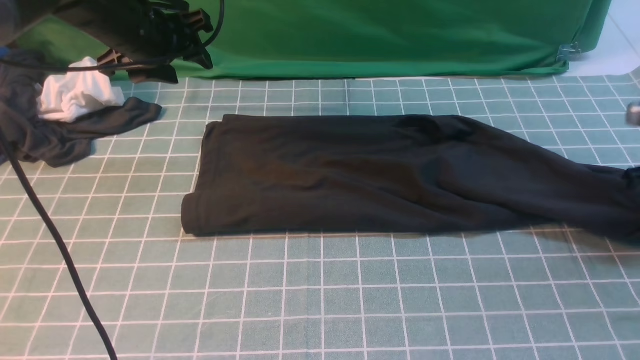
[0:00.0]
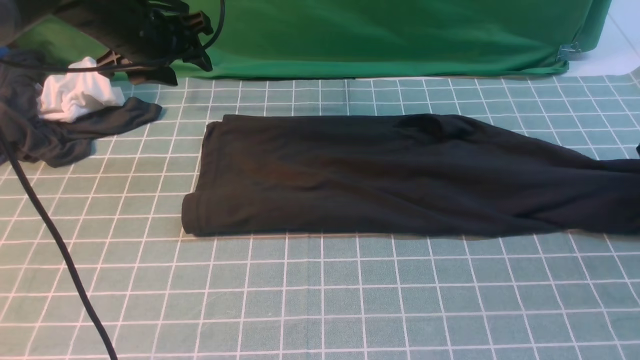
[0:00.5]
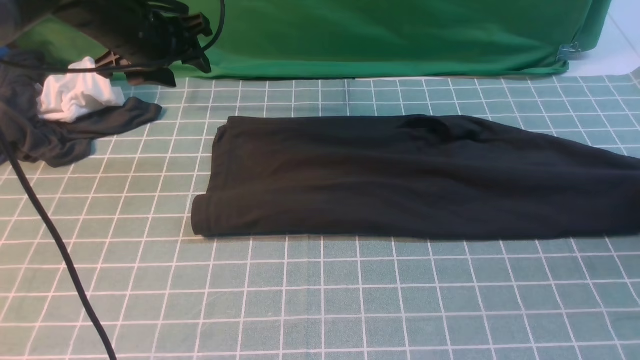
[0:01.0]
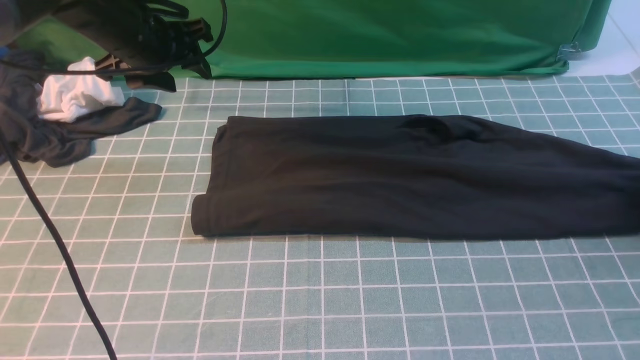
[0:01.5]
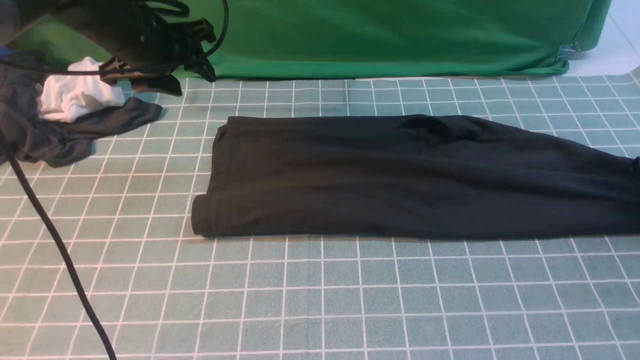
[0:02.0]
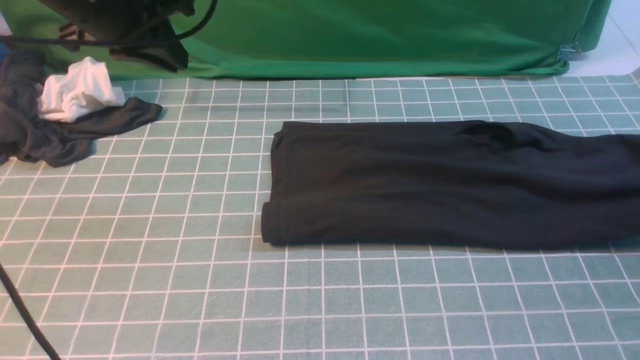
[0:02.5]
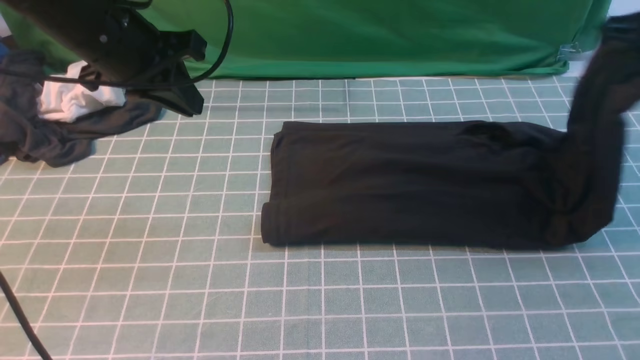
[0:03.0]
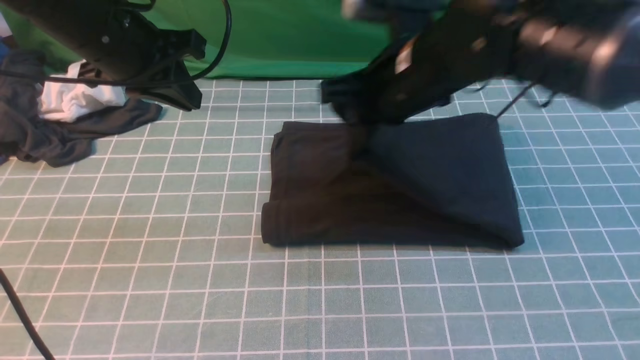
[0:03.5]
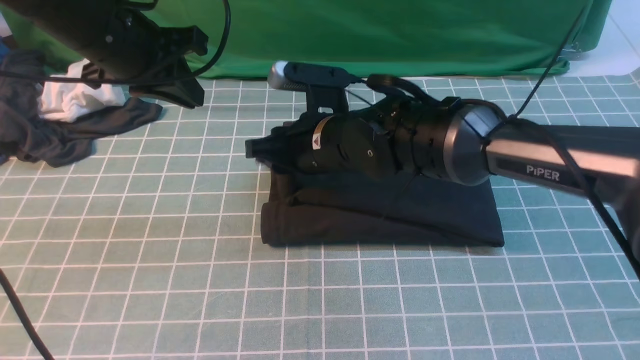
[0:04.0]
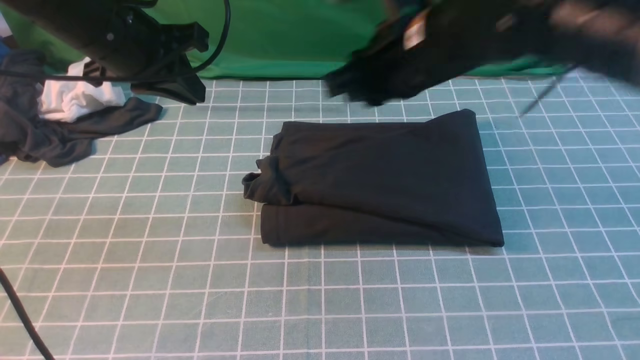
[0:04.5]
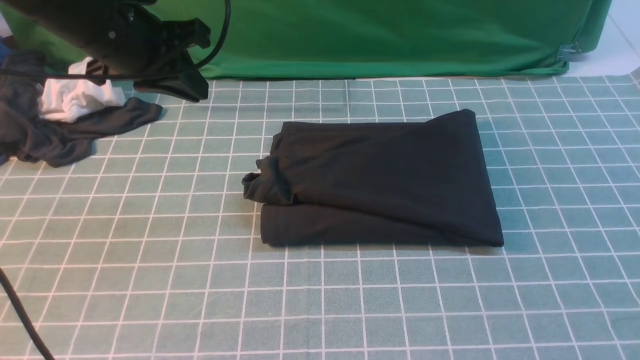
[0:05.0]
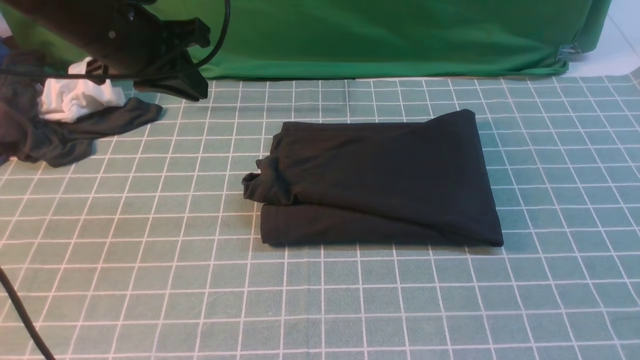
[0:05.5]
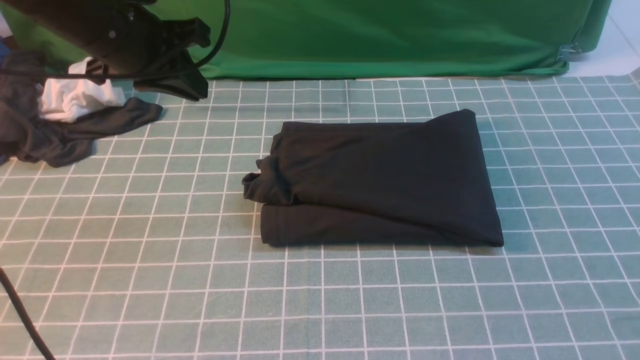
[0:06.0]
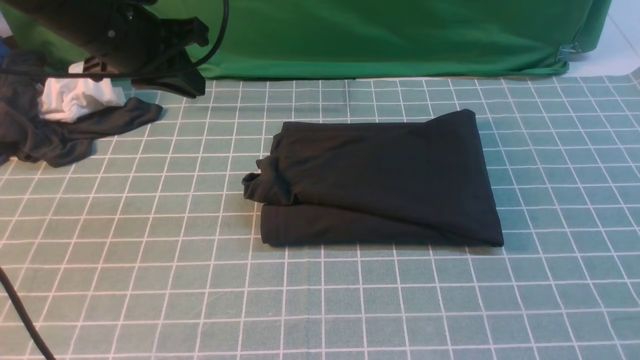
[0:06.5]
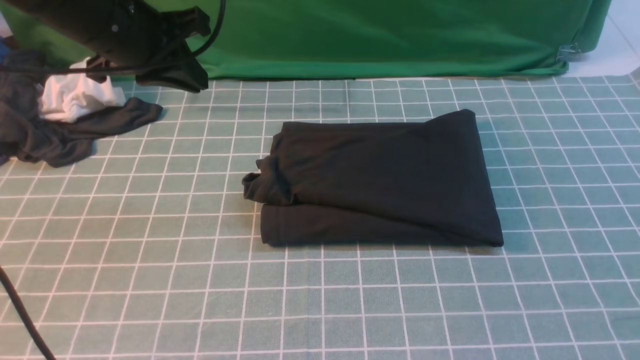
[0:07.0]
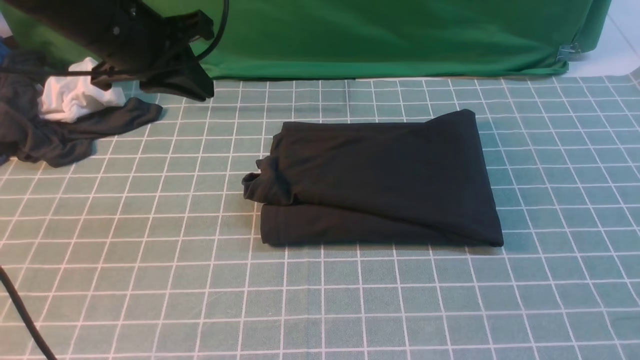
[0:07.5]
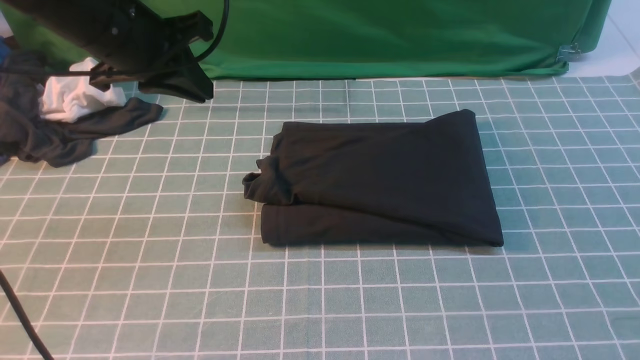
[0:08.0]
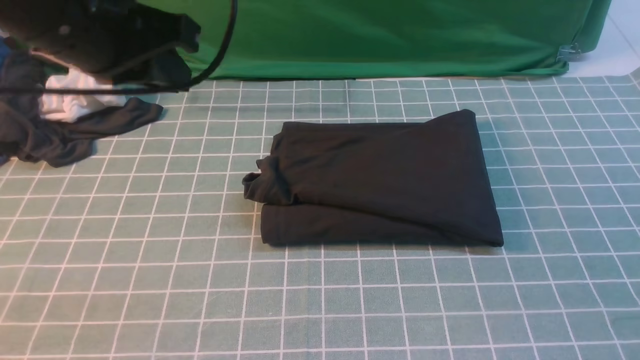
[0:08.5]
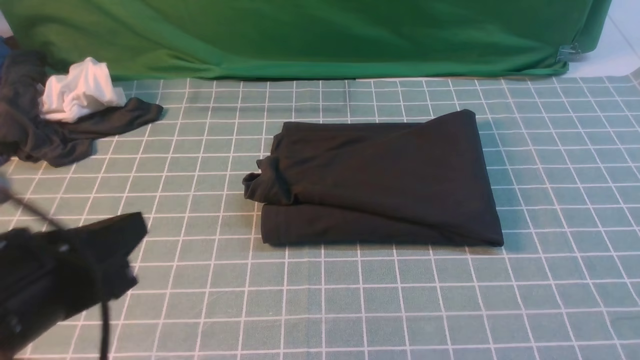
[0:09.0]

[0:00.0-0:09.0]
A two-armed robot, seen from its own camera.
Step, 0:00.0 to 0:02.0: use the right arm to clamp the right edge of the fabric.
Step, 0:02.5 to 0:04.0: use the right arm to drag the right edge of the fabric to the left and folds it over the left edge.
0:00.0 to 0:02.0: The right gripper shifts roughly 5 cm to the right, and opens, then closes once more.
0:02.0 to 0:04.5: The right gripper is displaced to the left and upward by roughly 40 cm. The left gripper goes approximately 5 cm backward, and closes its fingers.
0:04.5 to 0:07.0: The right gripper goes some 35 cm backward and to the right.
0:07.0 to 0:09.0: The left gripper is displaced backward by approximately 25 cm.

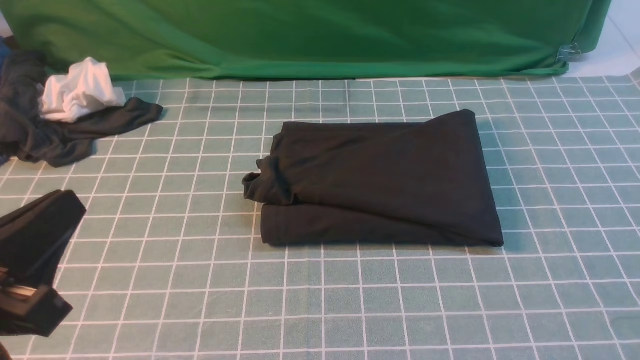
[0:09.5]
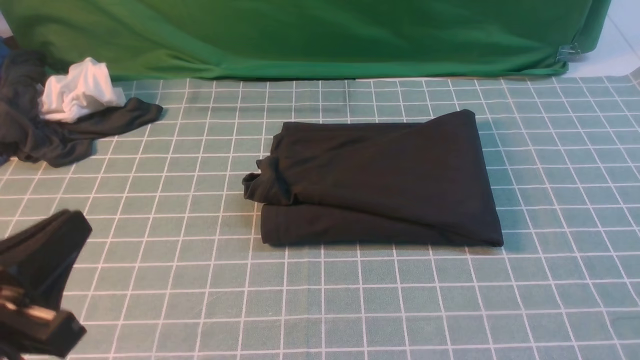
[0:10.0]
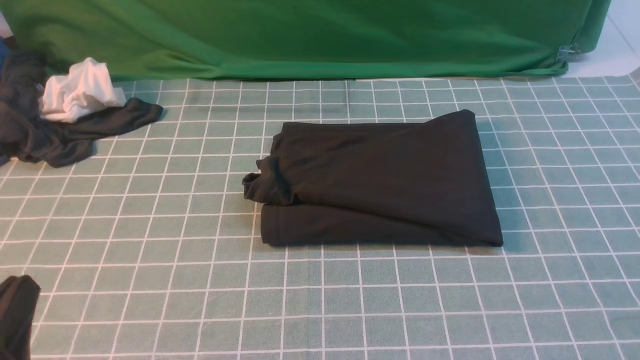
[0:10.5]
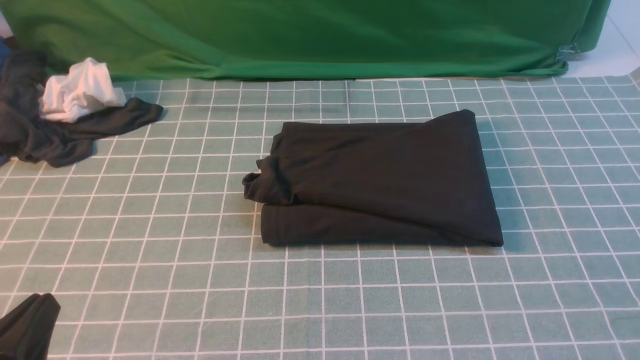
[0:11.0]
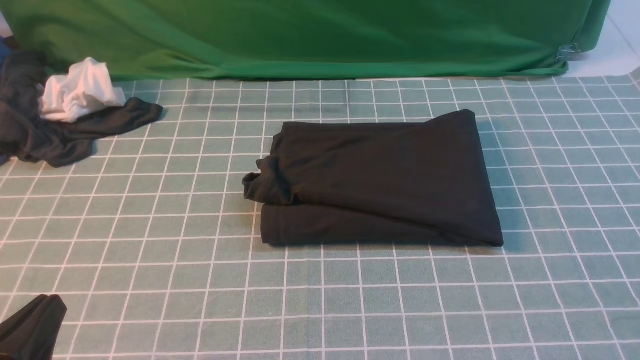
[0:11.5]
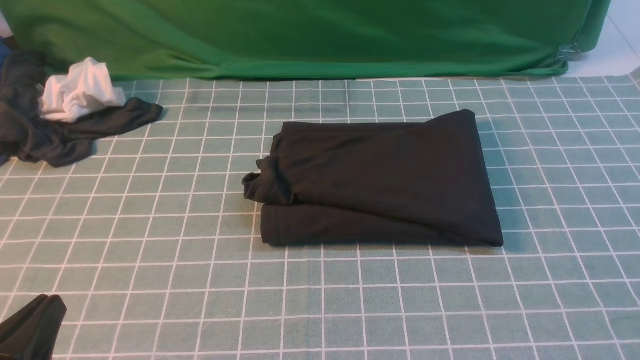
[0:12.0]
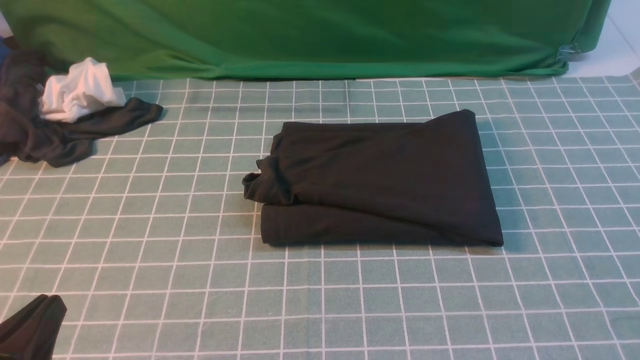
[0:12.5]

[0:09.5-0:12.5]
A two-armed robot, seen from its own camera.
0:09.5 to 0:11.0: The left gripper moves downward, roughly 10 cm.
0:11.0 to 0:12.5: Both grippers stay put.

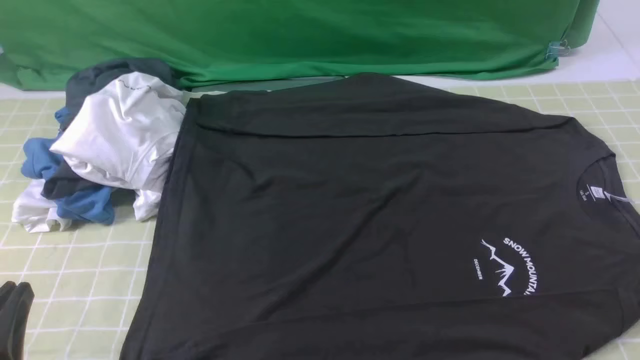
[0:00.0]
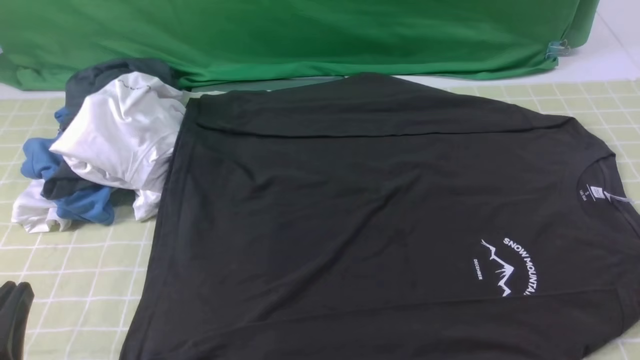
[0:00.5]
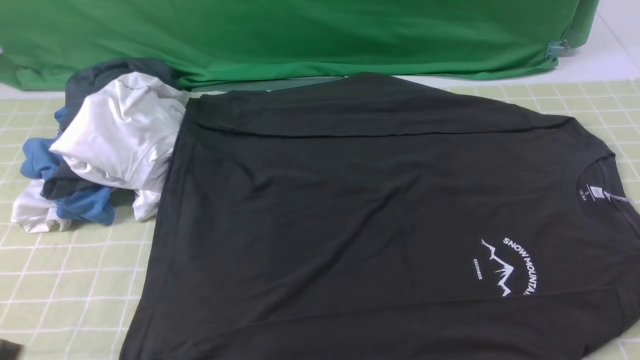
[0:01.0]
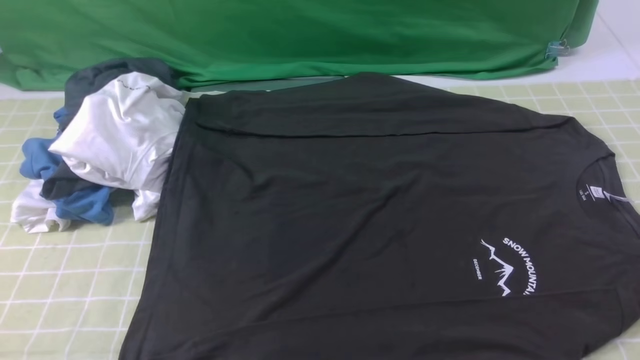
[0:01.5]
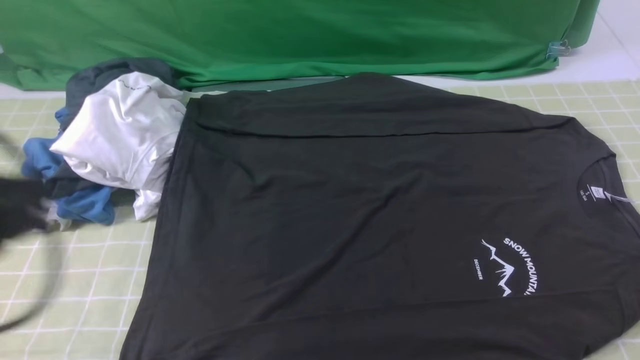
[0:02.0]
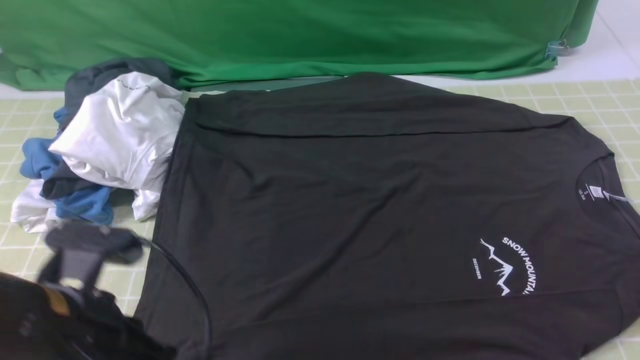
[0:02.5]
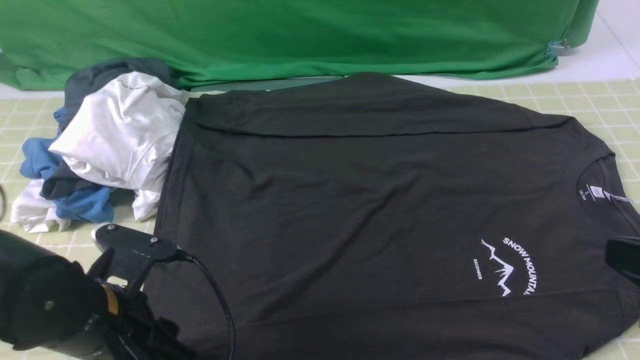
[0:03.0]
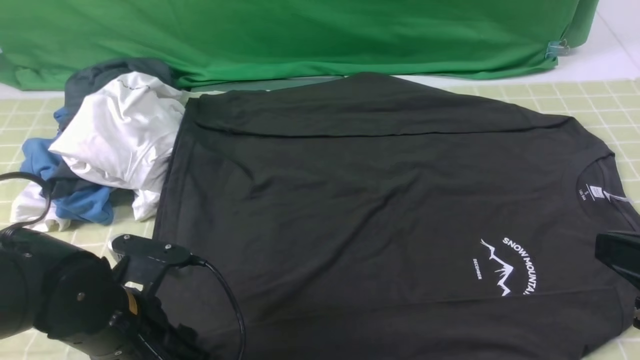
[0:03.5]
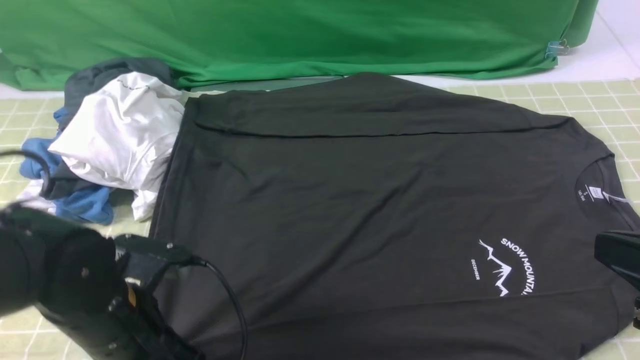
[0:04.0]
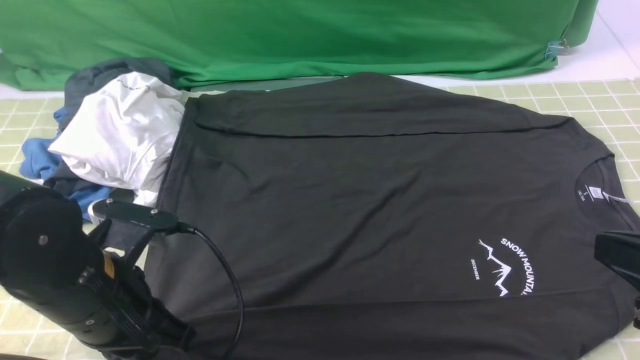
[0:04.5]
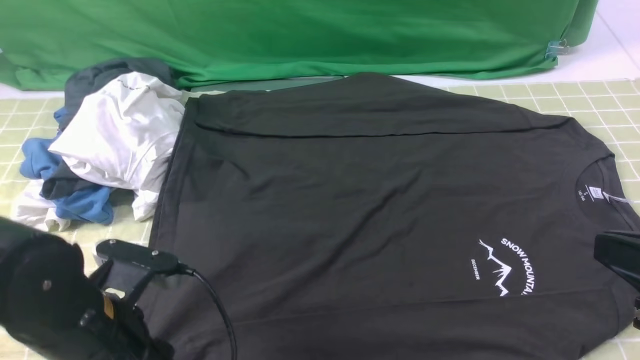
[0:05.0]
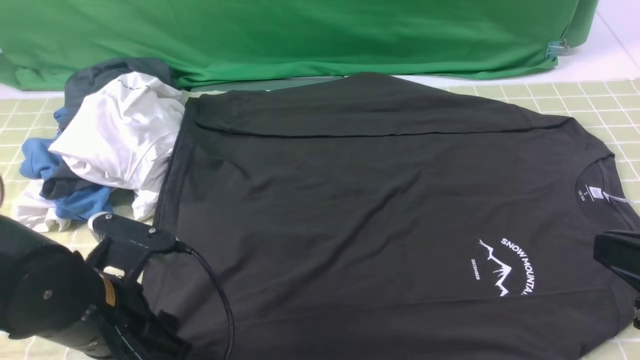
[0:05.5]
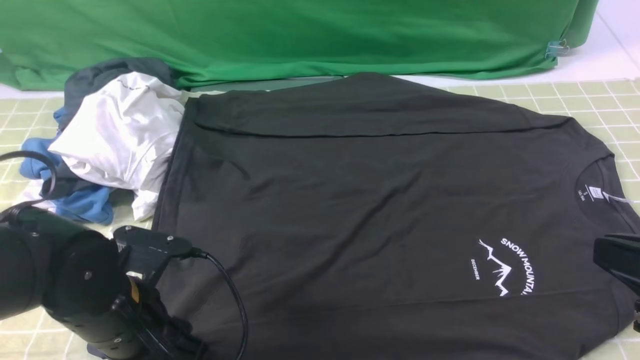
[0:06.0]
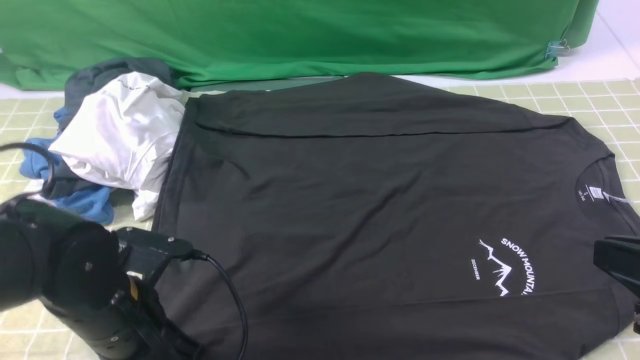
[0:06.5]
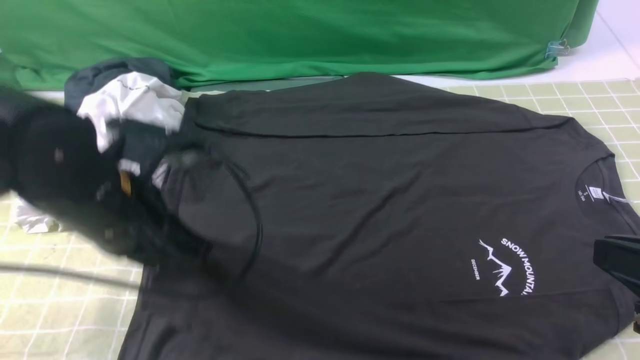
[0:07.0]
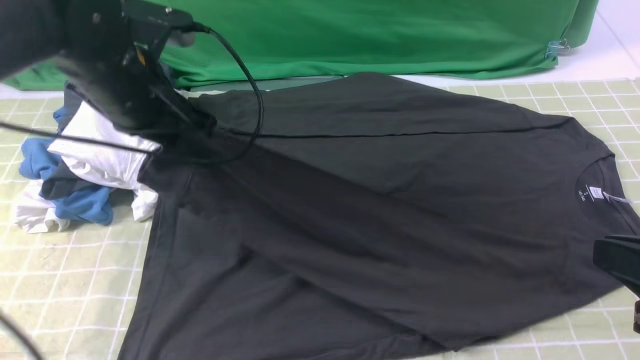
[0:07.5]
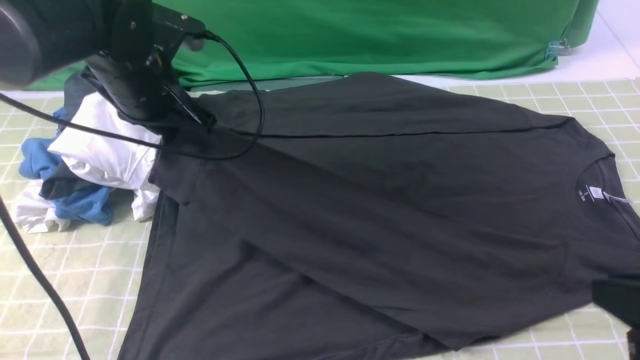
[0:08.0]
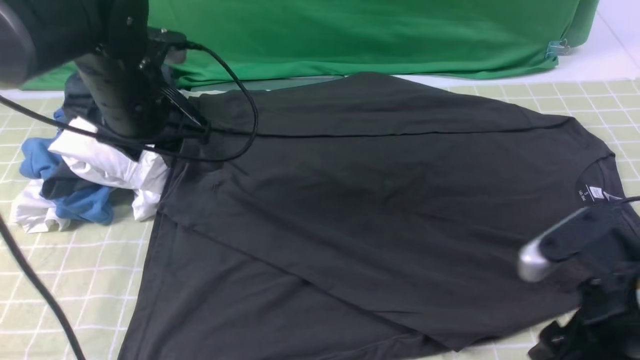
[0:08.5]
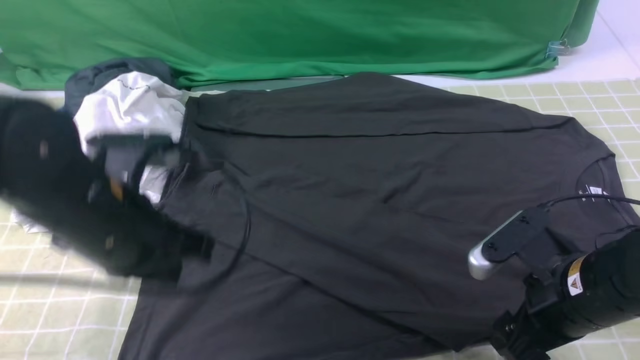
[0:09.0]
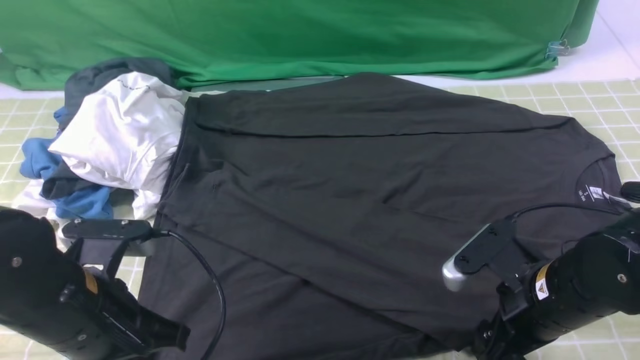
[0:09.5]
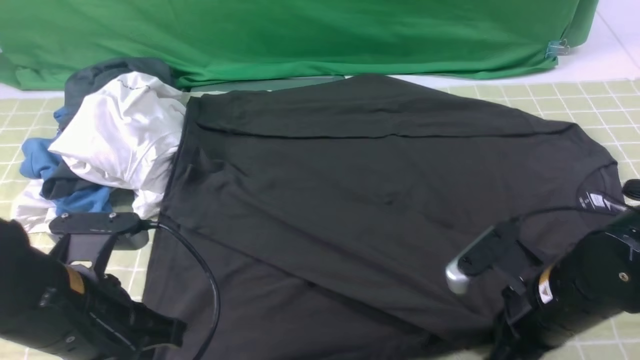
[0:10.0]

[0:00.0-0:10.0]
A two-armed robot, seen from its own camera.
Step, 0:00.0 to 0:06.0: use the left arm to clamp the cuff closest to it.
Step, 0:06.5 to 0:08.0: use the left arm to drag and place the cuff at the centered position on the left edge of the fabric.
0:00.0 to 0:02.0: The left gripper is displaced upward and forward by approximately 15 cm.
0:02.0 to 0:04.0: The right gripper moves upward, to the left and forward, roughly 10 cm, and closes its fingers. Meanwhile the left gripper shifts roughly 15 cm downward, and opens and closes again.
0:04.0 to 0:06.0: The left gripper opens.
0:06.0 to 0:08.0: The left gripper heads forward and upward, covering about 20 cm, and closes up.
0:08.0 to 0:10.0: The left gripper shifts roughly 20 cm backward, and closes its fingers, while the right gripper goes about 15 cm downward, forward and to the left, and closes.
